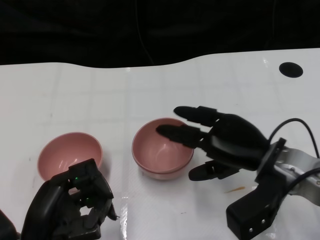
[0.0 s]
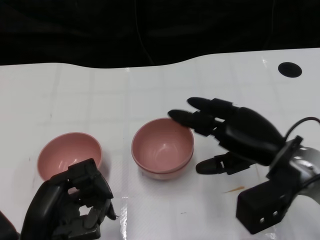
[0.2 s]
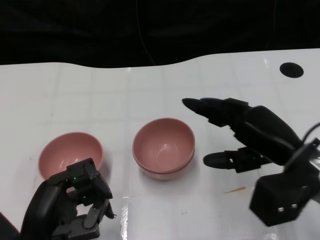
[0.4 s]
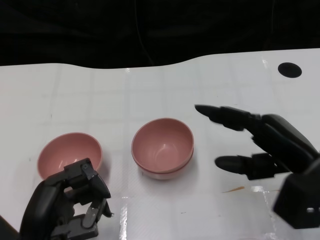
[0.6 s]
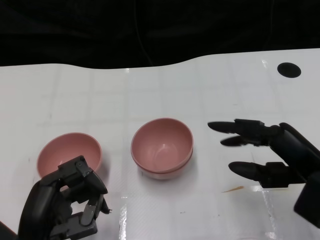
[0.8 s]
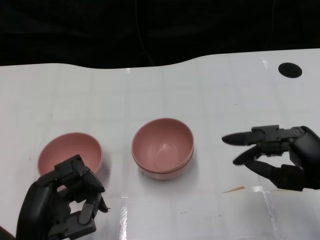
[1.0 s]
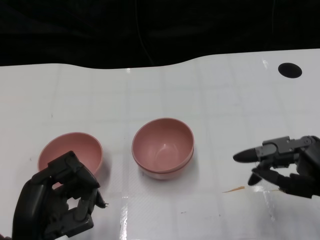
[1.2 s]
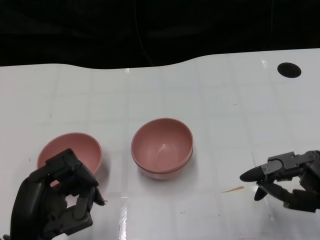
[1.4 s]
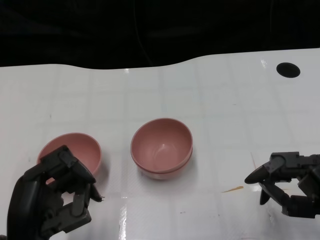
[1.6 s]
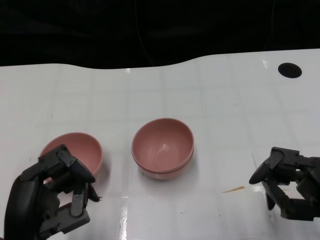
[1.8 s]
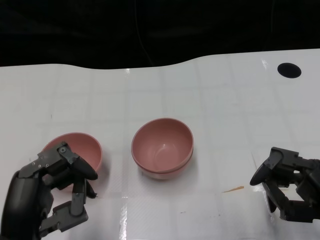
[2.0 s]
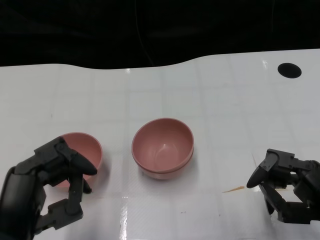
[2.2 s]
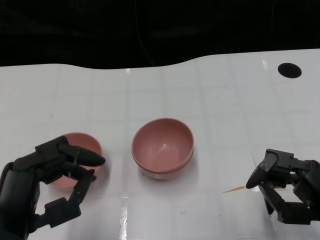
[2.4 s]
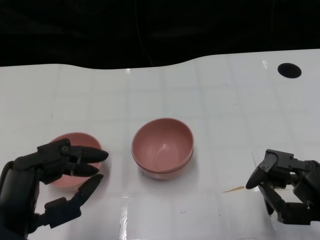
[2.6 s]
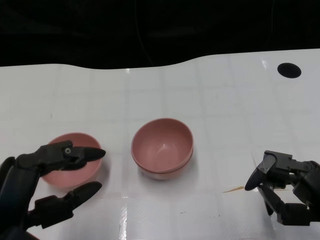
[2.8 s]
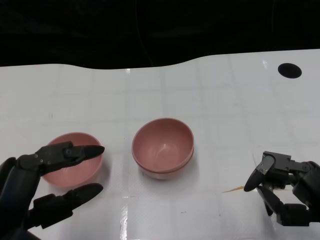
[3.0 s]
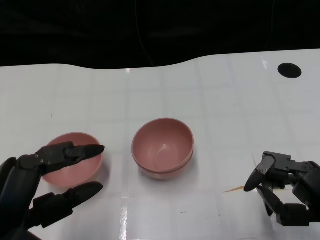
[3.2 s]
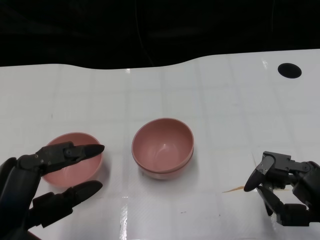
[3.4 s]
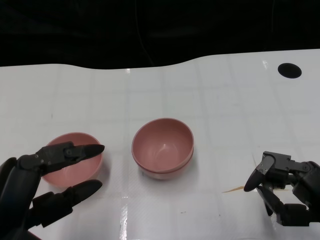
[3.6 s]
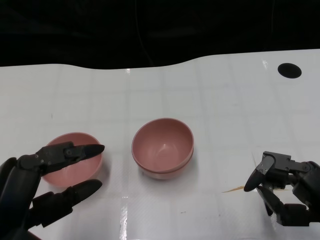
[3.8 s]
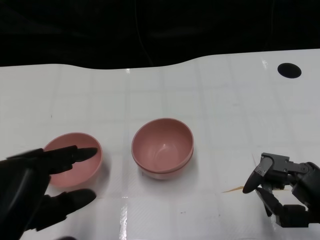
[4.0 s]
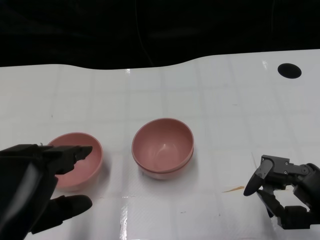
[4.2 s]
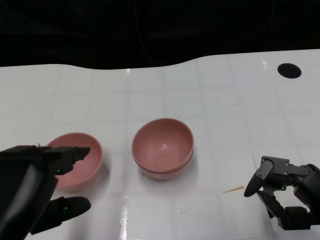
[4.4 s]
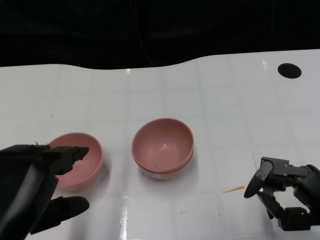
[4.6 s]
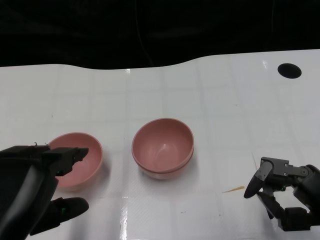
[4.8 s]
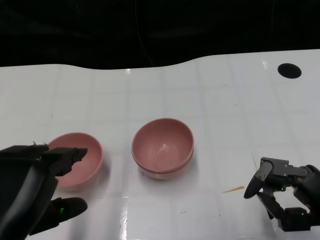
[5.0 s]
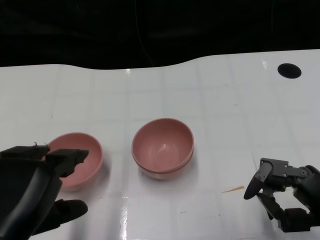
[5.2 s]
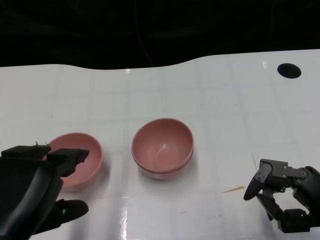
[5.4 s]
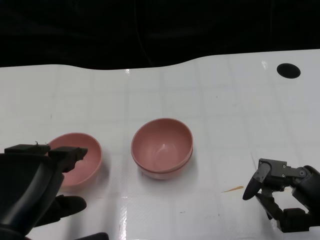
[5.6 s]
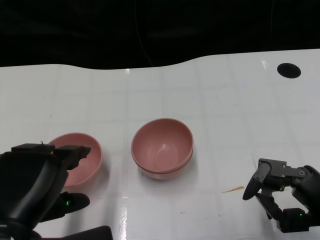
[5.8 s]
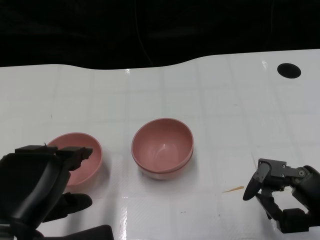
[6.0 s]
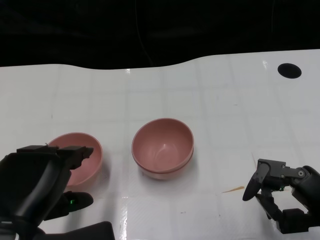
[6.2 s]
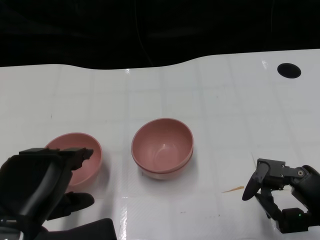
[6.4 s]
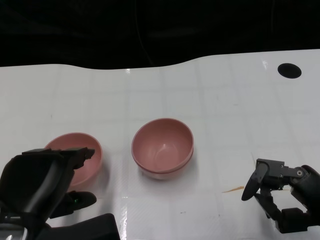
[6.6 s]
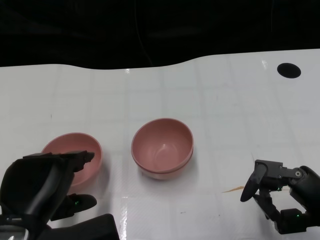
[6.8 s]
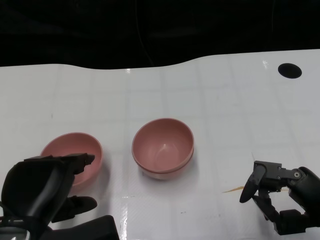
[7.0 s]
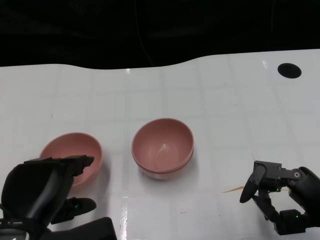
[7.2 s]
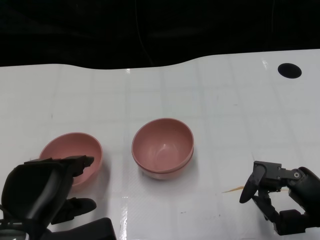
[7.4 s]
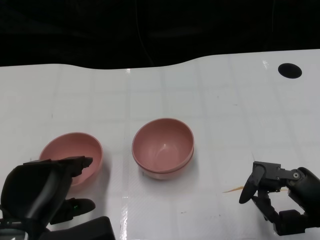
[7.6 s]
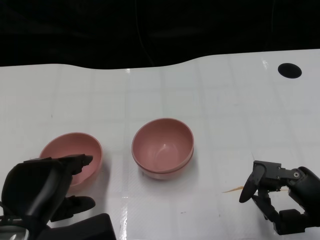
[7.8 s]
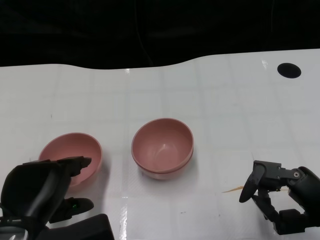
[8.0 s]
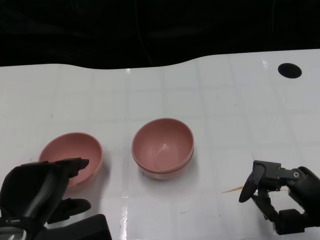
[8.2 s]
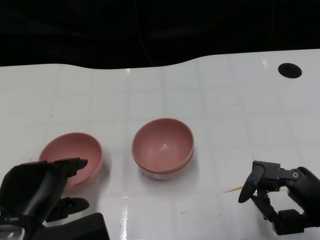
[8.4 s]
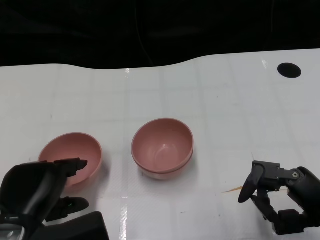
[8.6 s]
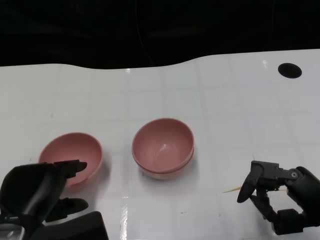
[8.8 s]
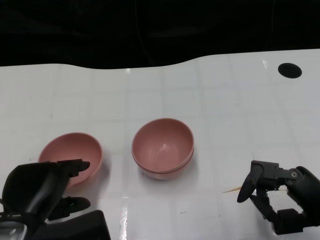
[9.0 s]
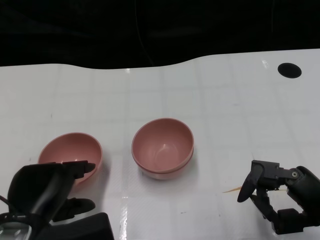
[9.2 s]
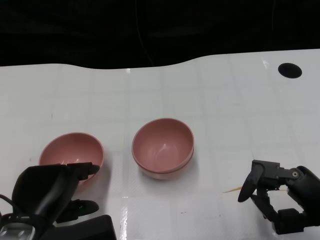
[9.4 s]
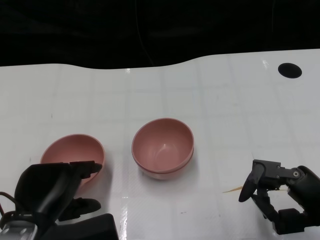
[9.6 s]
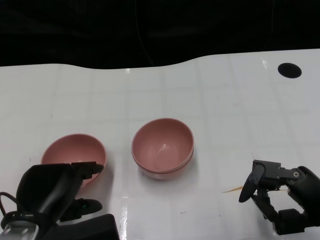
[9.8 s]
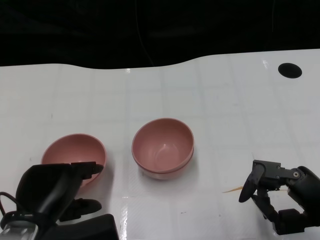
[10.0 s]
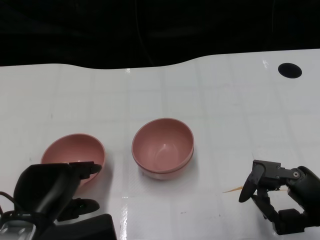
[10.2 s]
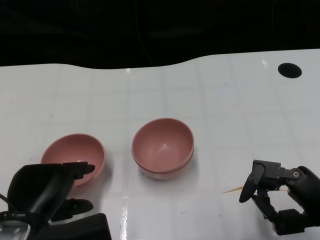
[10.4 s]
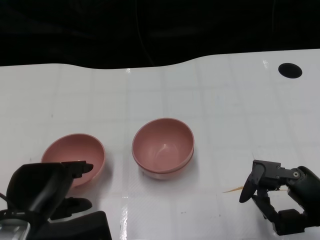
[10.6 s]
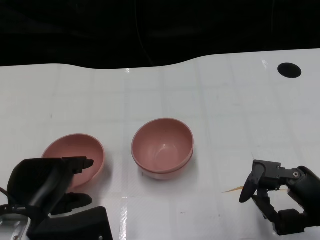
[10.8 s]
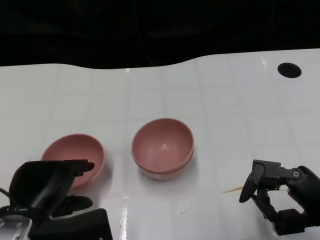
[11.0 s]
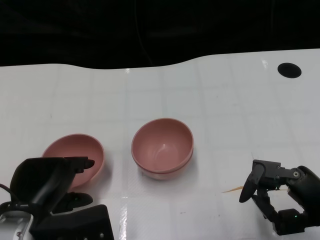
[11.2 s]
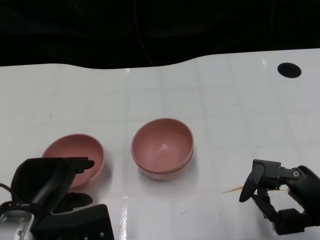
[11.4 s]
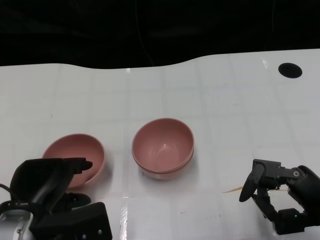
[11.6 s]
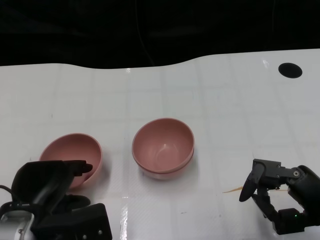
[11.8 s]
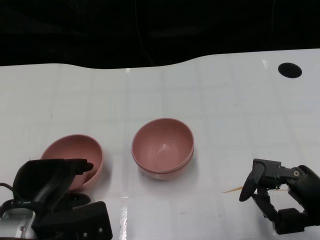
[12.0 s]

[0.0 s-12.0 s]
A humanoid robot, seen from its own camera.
Task of the whole recording: Pick up the bowl on one side of the table and place it on top of the middle bowl, then pick up the bowl on the other side of the table and place it on top of the middle bowls.
0.0 to 1.6 s: The right hand heads to the right and backward, covering approximately 15 cm.
1.6 to 3.0 s: The left hand heads upward, covering approximately 5 cm.
4.4 to 6.0 s: The hands stay close to where they were, moving slightly.
6.0 to 7.6 s: The hands make only small movements.
7.6 to 9.0 s: The hands stay close to where they were, moving slightly.
9.0 to 10.4 s: The two hands keep their place.
10.4 to 12.0 s: There are only small adjustments of the hands.

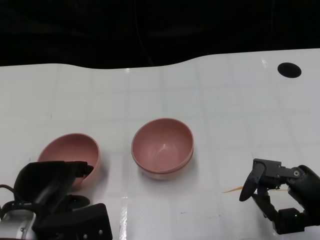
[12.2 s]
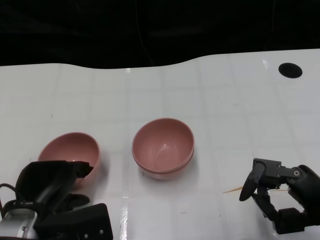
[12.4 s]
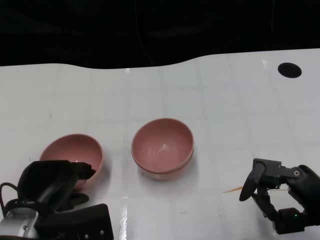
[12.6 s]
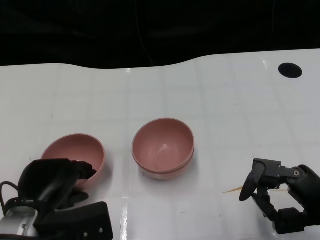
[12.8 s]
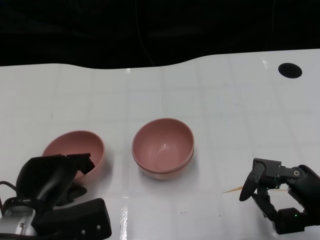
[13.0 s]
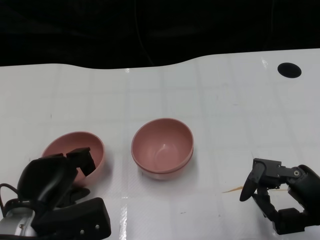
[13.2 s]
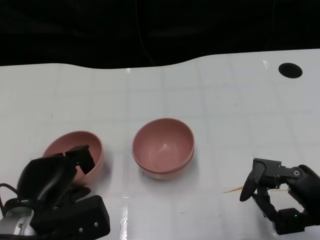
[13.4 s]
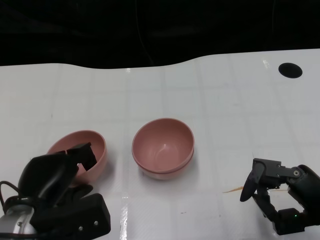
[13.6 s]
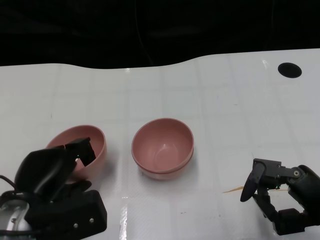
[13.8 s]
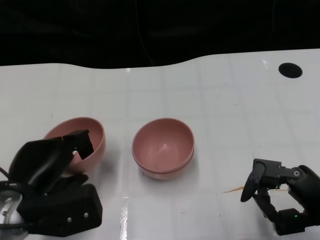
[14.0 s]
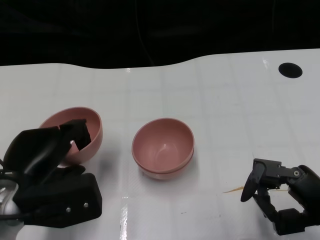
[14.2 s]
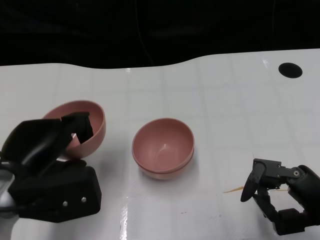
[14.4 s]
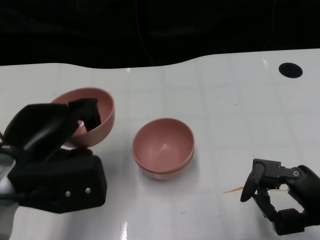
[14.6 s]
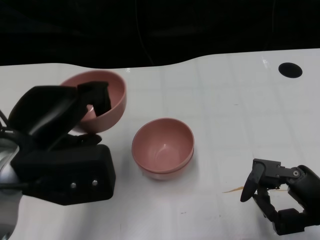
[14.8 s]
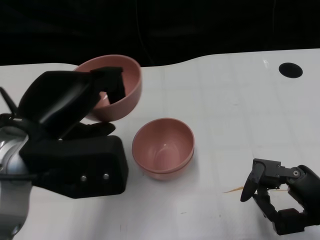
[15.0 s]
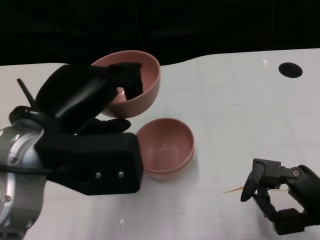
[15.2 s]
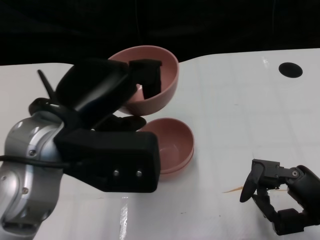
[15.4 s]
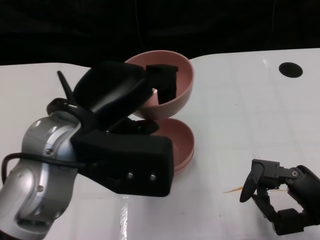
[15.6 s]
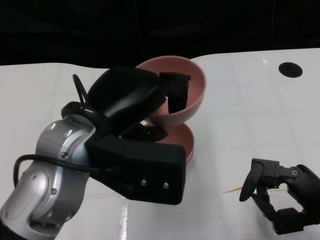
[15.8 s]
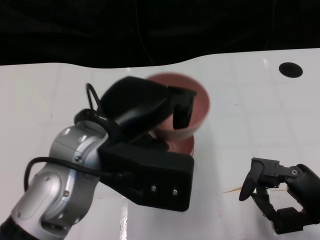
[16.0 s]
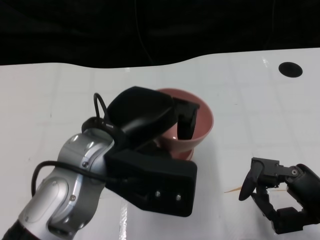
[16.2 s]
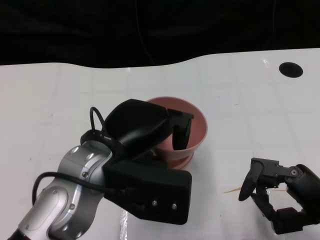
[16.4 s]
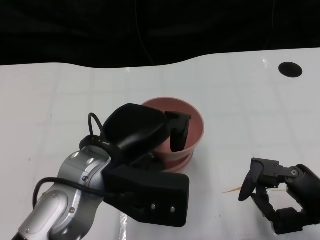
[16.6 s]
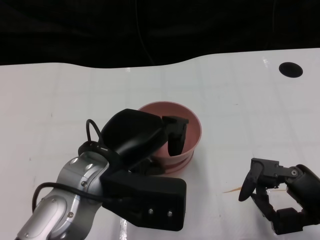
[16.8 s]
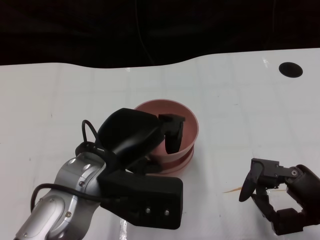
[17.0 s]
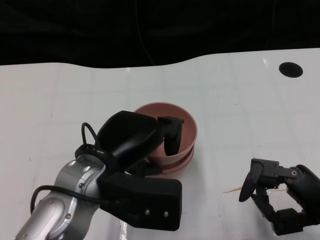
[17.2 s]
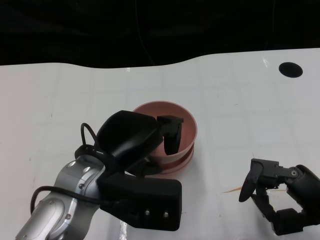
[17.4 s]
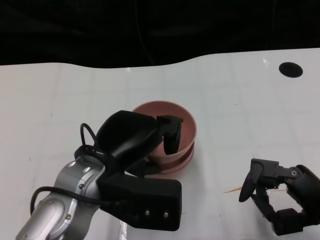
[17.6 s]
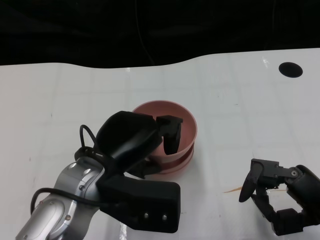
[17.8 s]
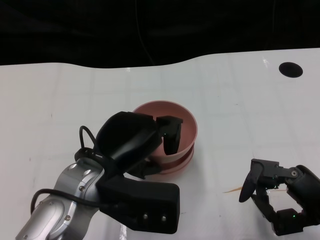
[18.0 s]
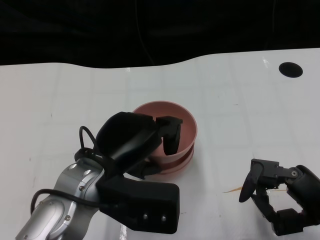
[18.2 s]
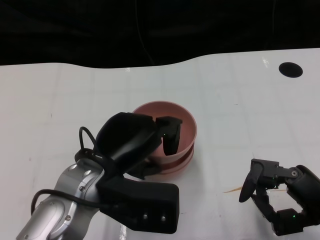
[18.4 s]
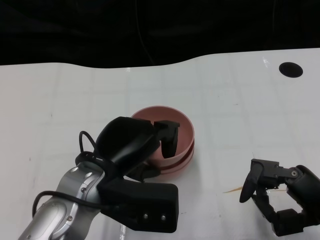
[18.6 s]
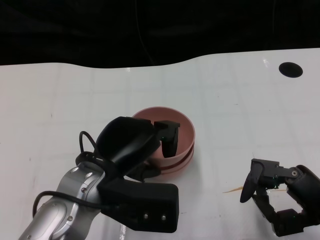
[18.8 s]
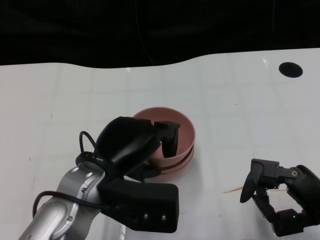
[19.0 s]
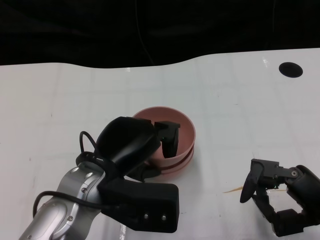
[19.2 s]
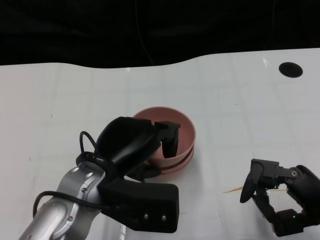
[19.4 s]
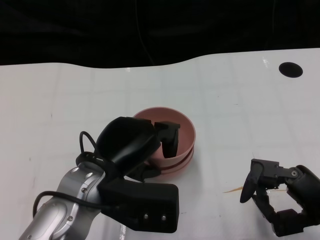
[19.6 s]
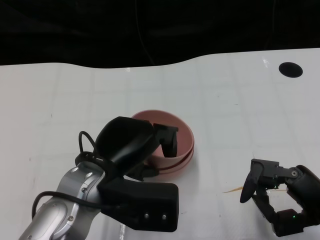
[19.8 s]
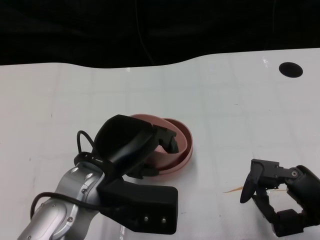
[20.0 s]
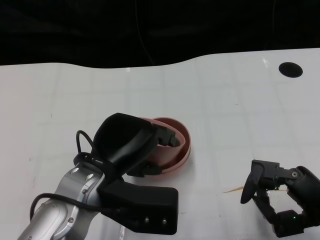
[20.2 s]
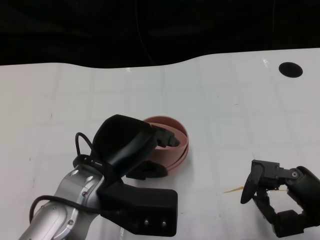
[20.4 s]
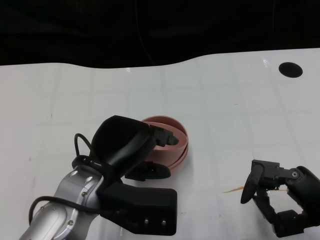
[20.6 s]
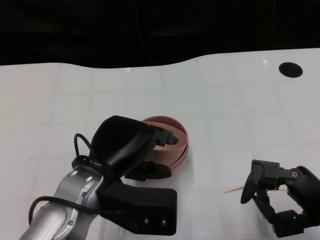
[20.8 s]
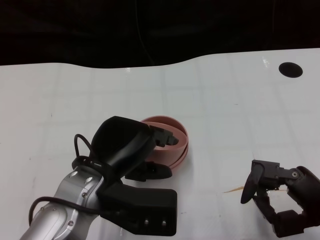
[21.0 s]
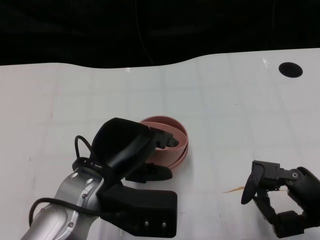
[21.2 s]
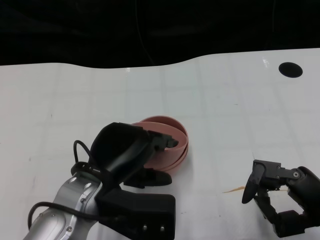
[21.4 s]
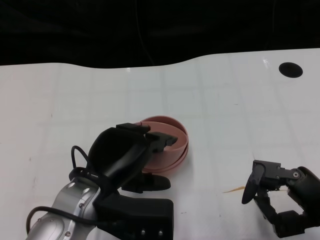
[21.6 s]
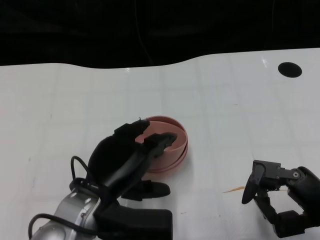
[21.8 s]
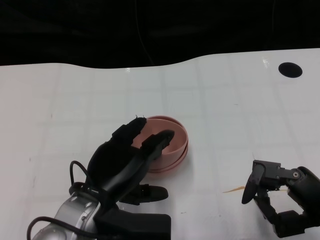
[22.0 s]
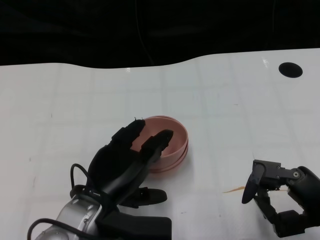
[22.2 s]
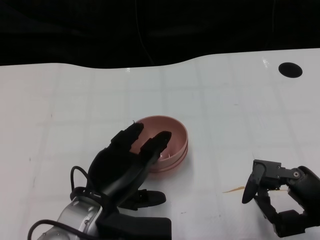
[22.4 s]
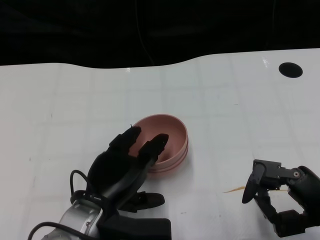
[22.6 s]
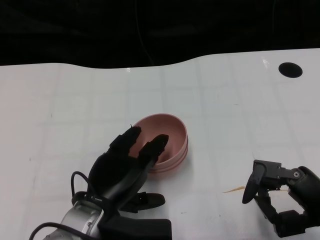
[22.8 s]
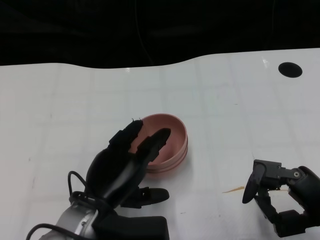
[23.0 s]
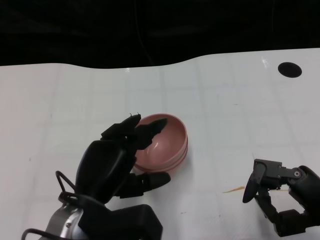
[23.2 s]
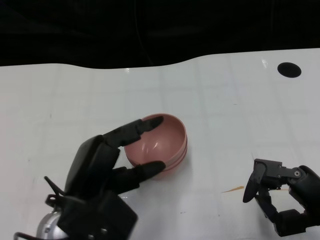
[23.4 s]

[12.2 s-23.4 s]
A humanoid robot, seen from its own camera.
Task of the whole recording: Pick up the bowl on one side of the table and place it on top of the middle bowl, then pick up the bowl on the other side of the table and place it on top of the middle bowls.
12.2 to 13.8 s: The hands stay close to where they were, moving slightly.
13.8 to 15.4 s: The left hand travels upward by some 15 cm.
15.4 to 17.0 s: The left hand heads downward, covering approximately 5 cm.
17.0 to 21.8 s: The hands stay close to where they were, moving slightly.
